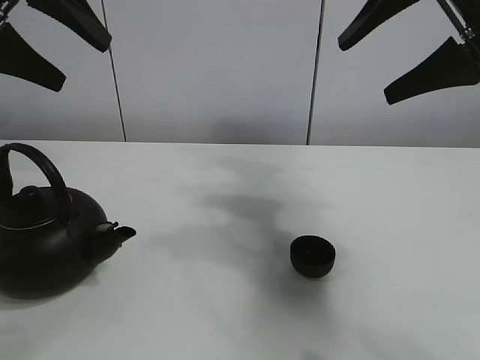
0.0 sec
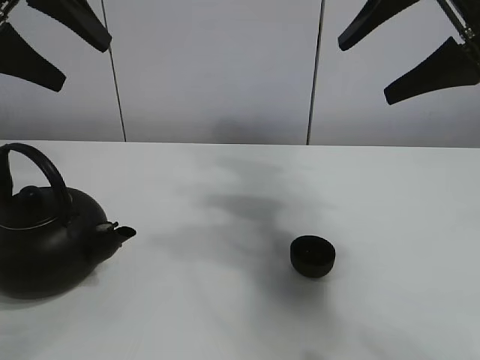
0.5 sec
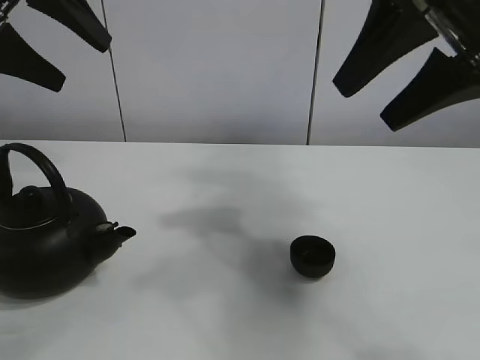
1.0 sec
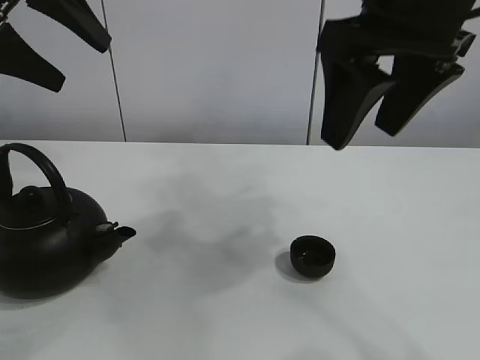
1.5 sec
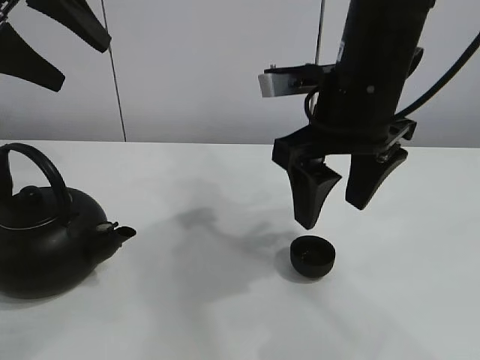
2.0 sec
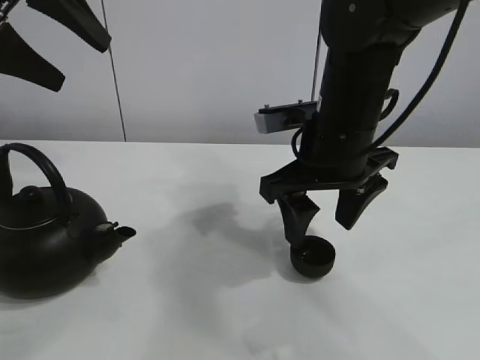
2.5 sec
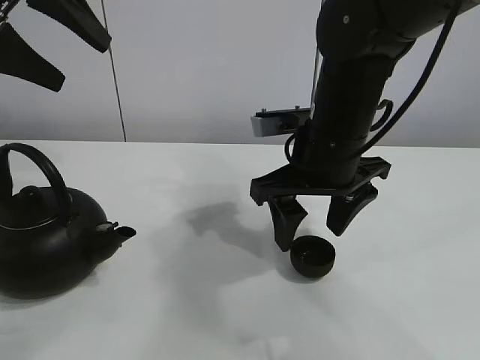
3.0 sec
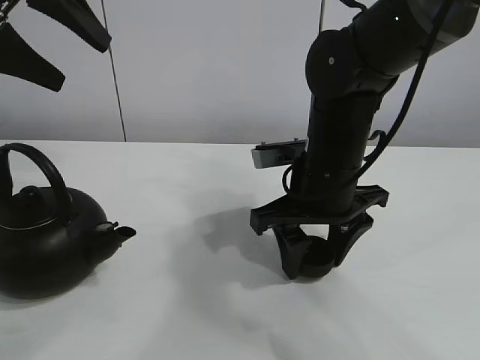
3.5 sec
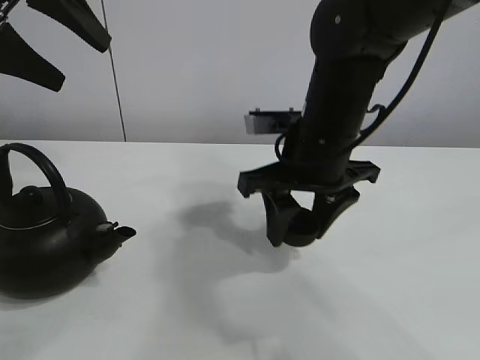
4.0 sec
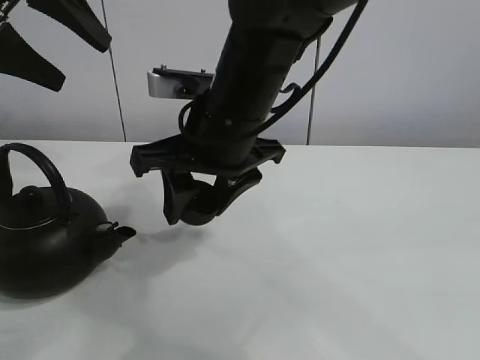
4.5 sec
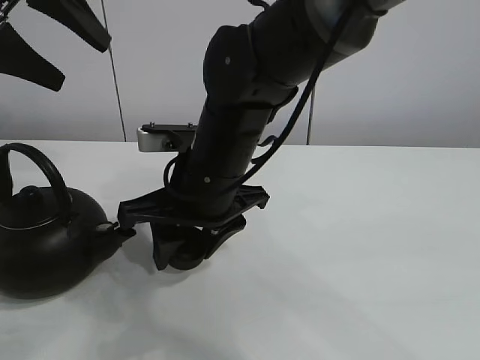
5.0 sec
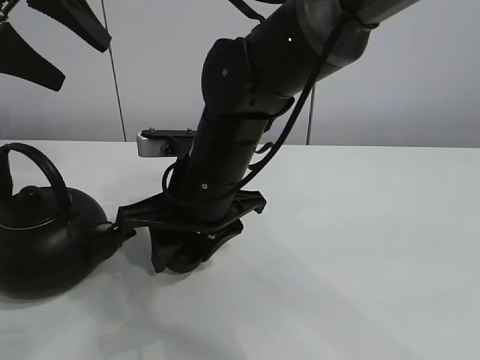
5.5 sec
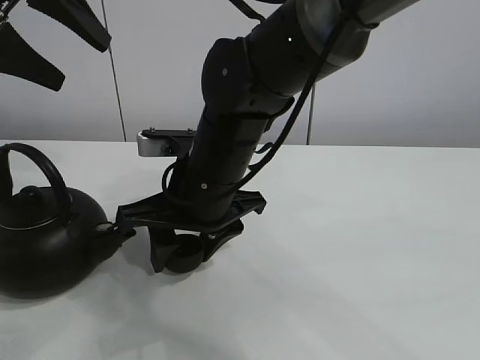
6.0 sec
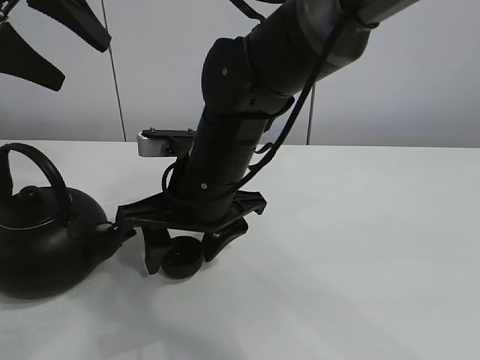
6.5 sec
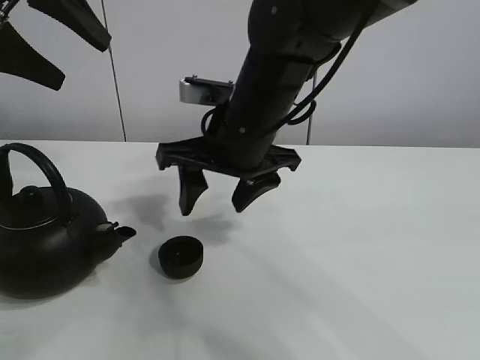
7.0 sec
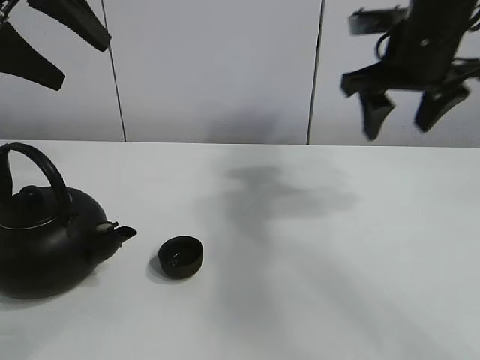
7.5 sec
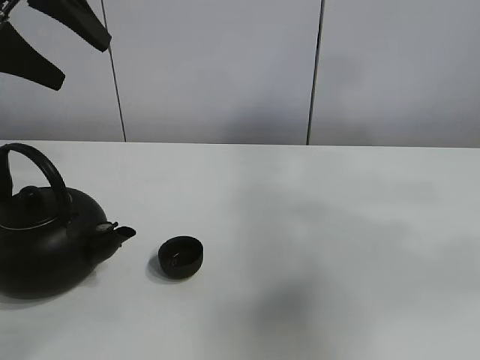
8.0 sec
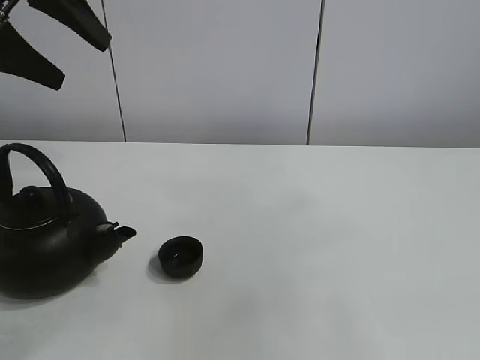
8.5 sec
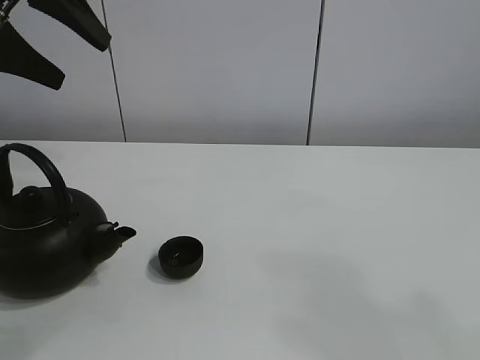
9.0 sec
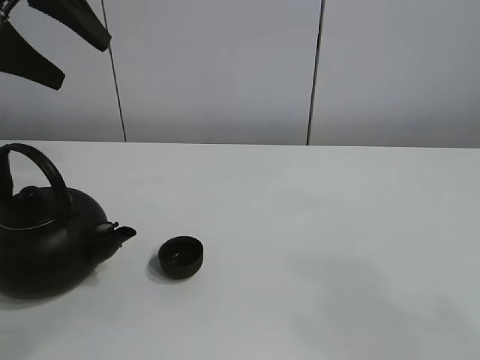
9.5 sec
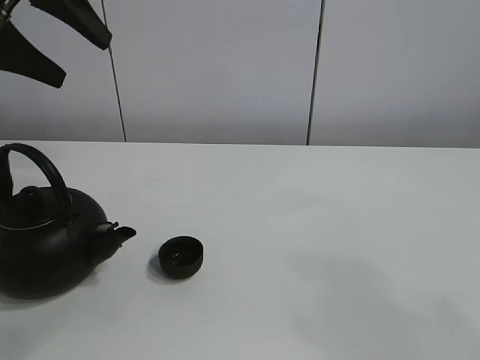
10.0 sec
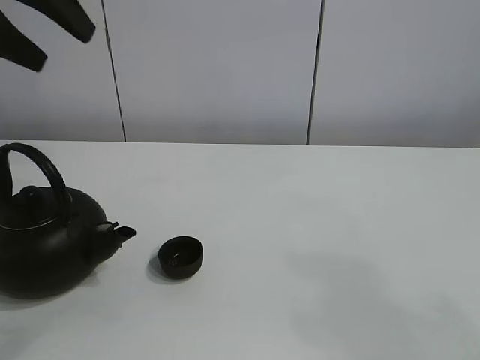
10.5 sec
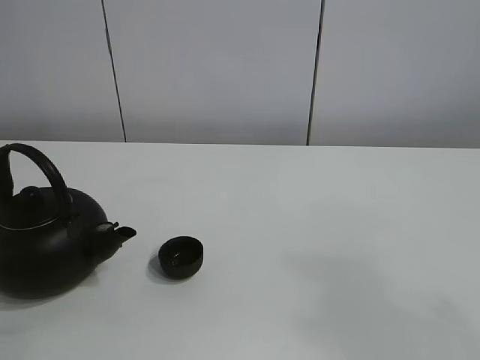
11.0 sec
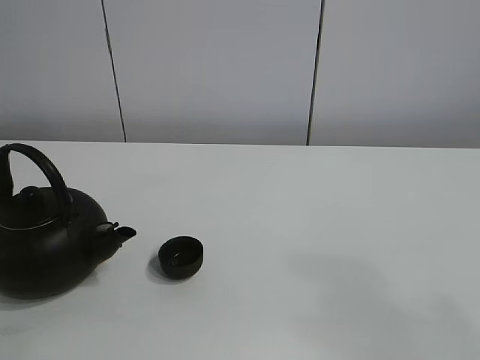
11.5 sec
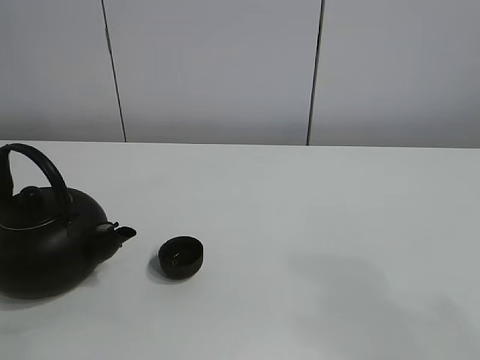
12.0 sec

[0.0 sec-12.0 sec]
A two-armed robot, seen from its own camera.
Task of the whole recording: pour tea into the teacup.
Step, 0.0 sec to 3.5 sec: Pick up the teacup with the right gripper.
Step, 4.0 sec to 6.0 sec: Place the teacup in the center of view with the right gripper.
2.0 sec to 4.0 sec: The right gripper closes up.
4.0 sec to 6.0 sec: The right gripper goes roughly 10 cm to the left.
6.0 sec to 8.0 sec: The right gripper travels to the right and upward by about 50 cm, and opens.
8.0 sec to 10.0 sec: The right gripper shifts some 30 cm backward, downward and to the left.
10.0 sec to 12.0 sec: The left gripper shifts about 20 cm backward.

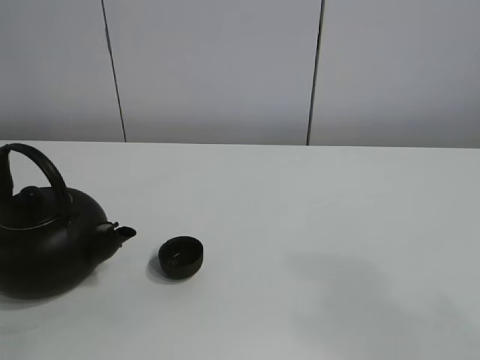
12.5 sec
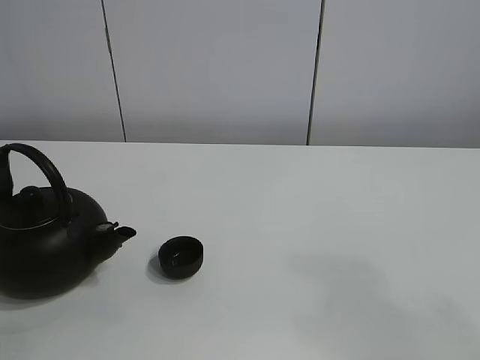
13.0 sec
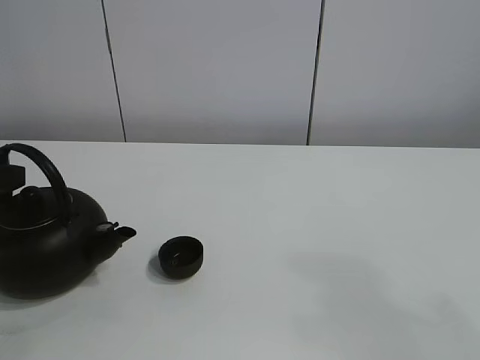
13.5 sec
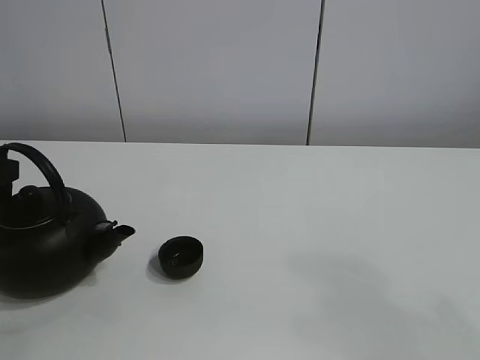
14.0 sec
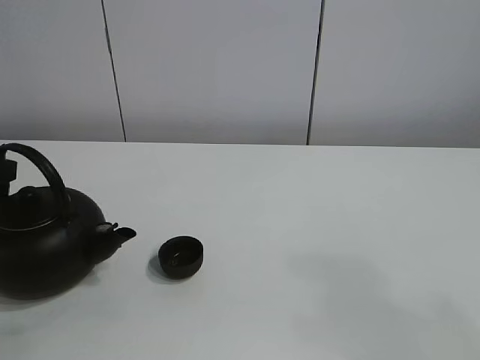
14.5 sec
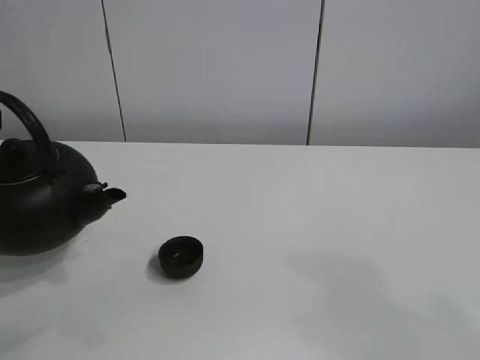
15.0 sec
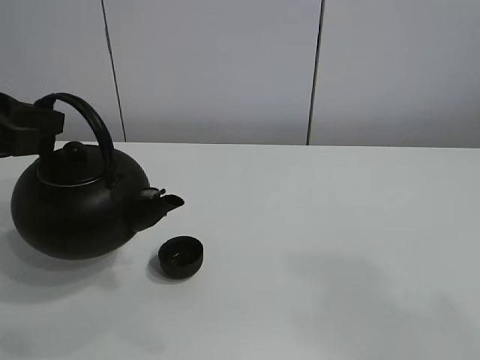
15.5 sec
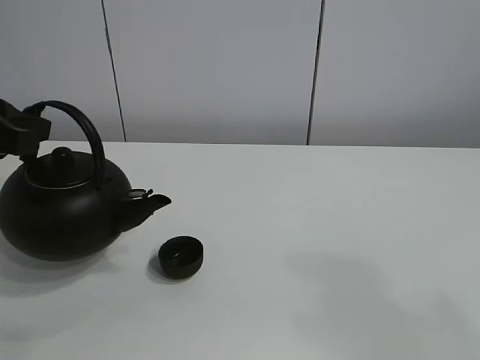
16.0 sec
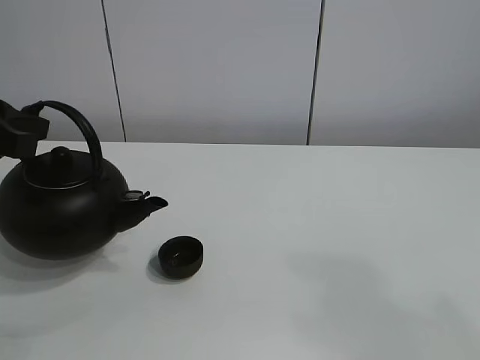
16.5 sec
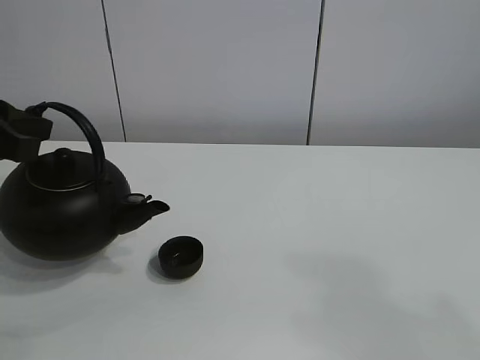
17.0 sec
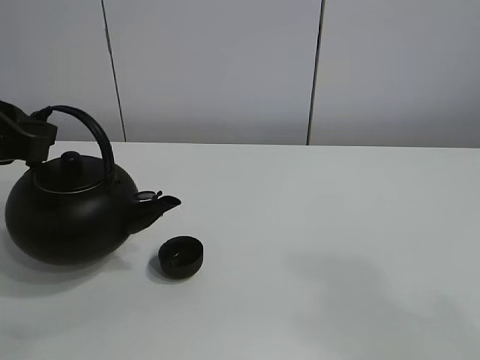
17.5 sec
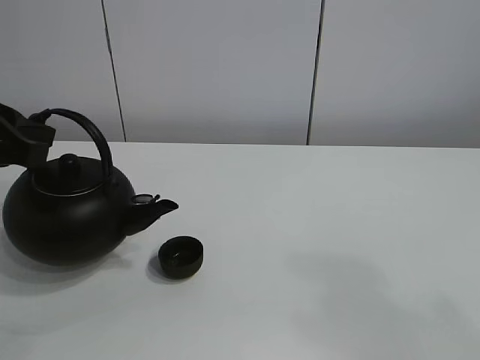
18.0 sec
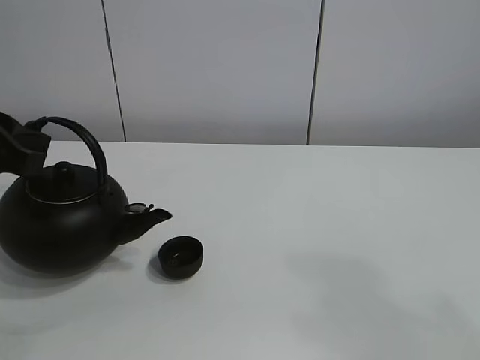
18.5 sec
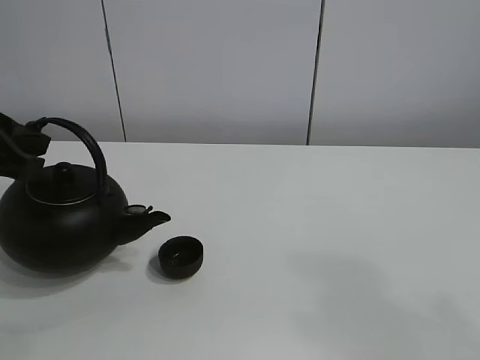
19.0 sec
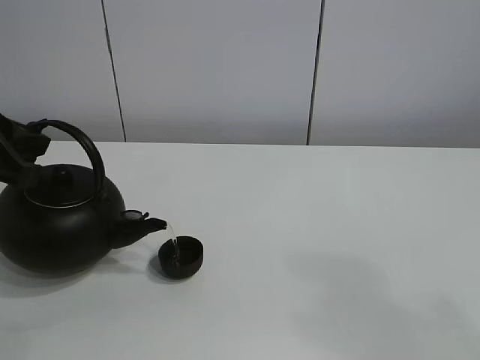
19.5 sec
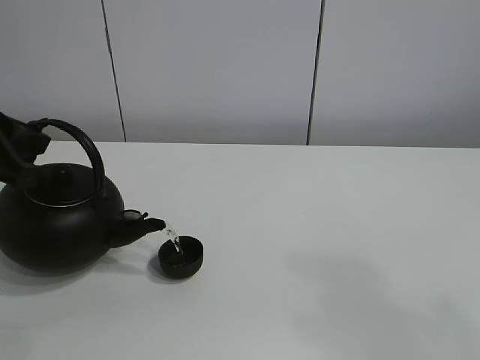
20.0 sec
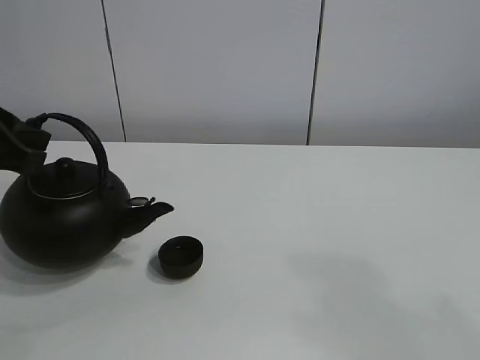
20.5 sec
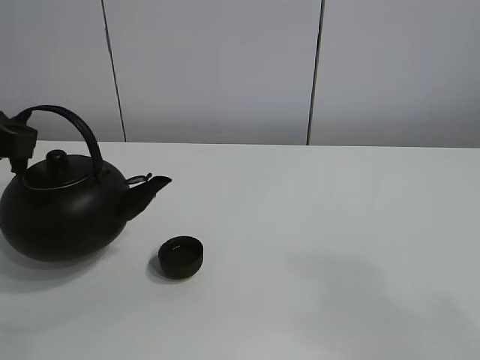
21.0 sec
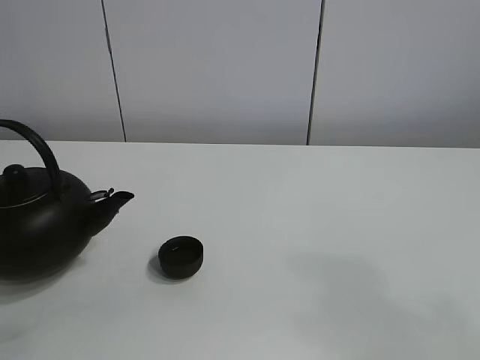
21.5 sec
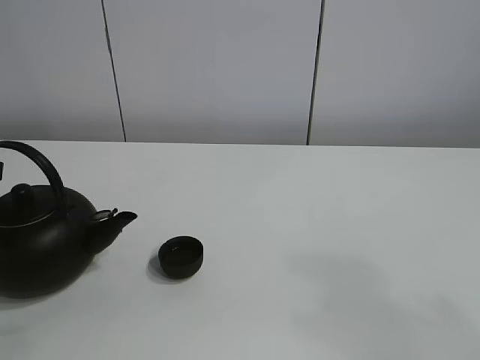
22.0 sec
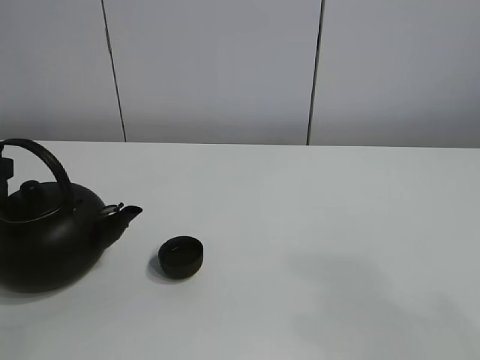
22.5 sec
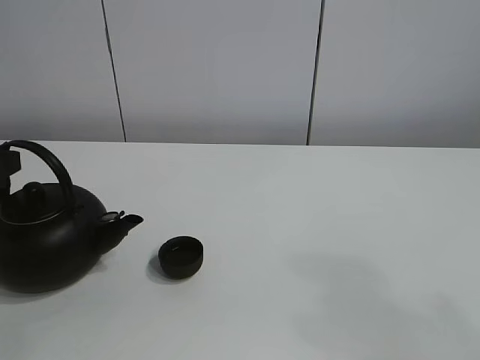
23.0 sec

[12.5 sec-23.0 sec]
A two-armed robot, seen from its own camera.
Task of the whole recording: pour tea into the teacup.
Step, 15.0 sec to 20.5 sec: Pour tea into the teacup with the left gripper.
14.5 sec to 16.5 sec: The left gripper ends up roughly 5 cm from where it was.
16.5 sec to 21.0 sec: There are only small adjustments of the grippers.
21.0 sec to 23.0 sec: The left gripper changes place by about 5 cm, and opens up.

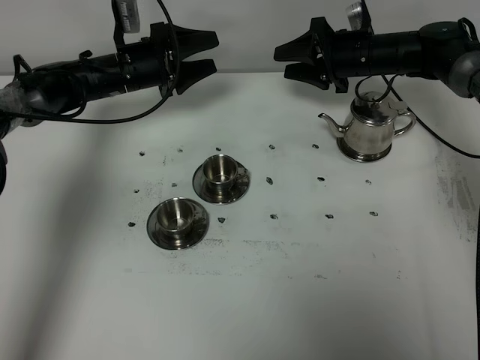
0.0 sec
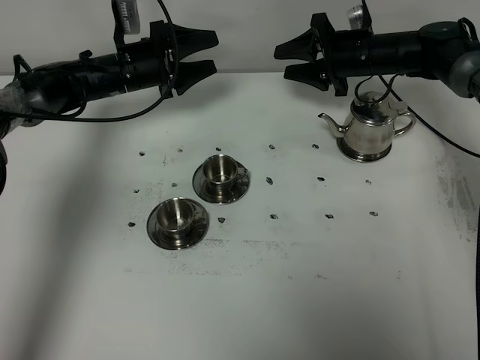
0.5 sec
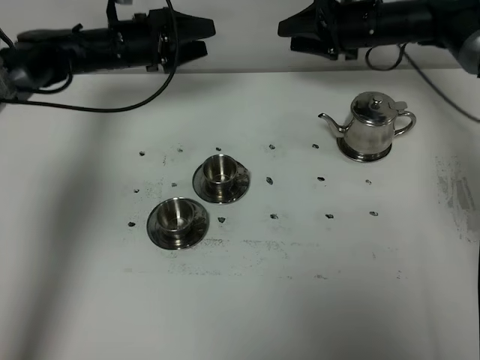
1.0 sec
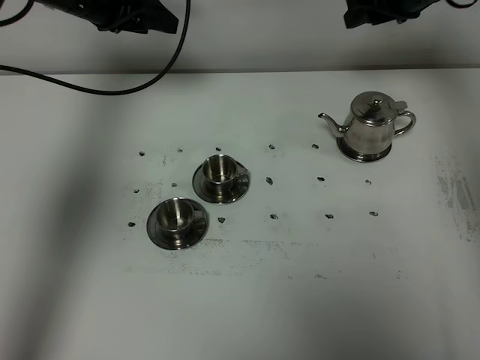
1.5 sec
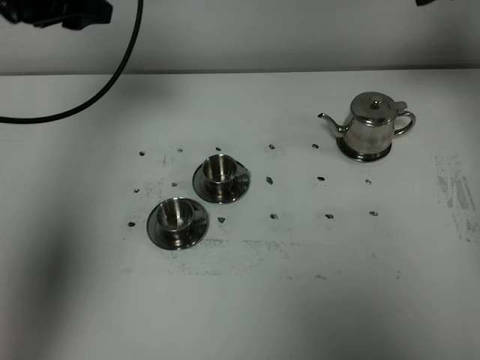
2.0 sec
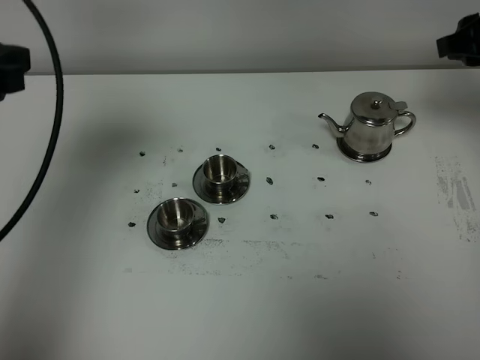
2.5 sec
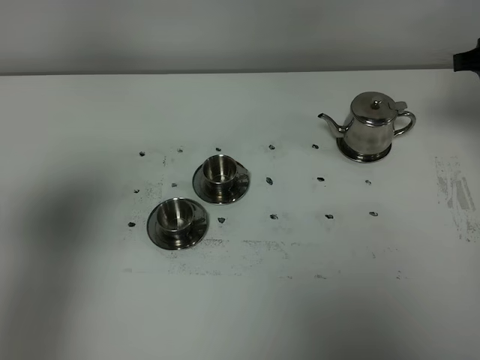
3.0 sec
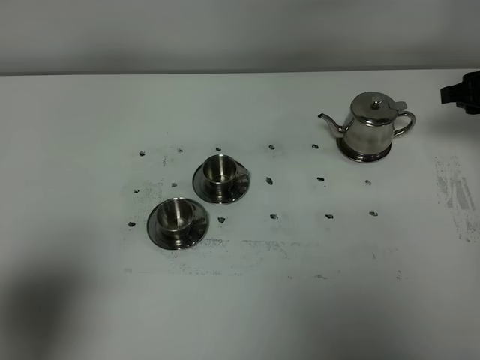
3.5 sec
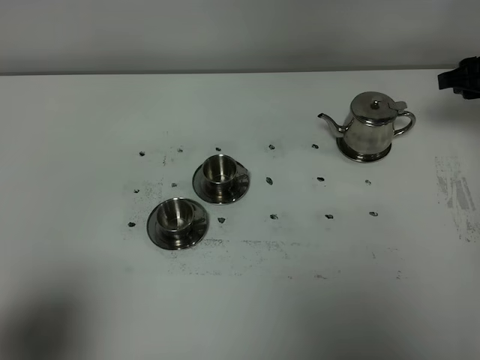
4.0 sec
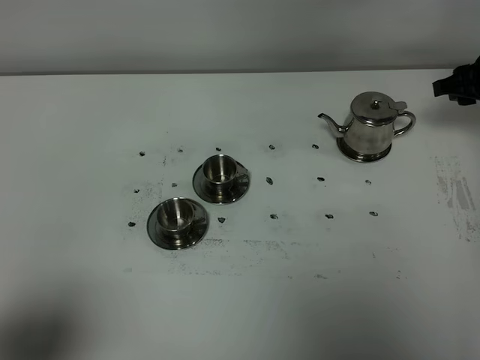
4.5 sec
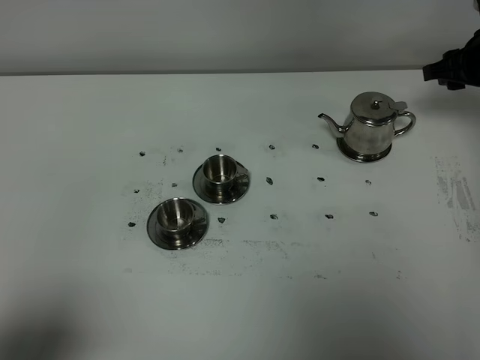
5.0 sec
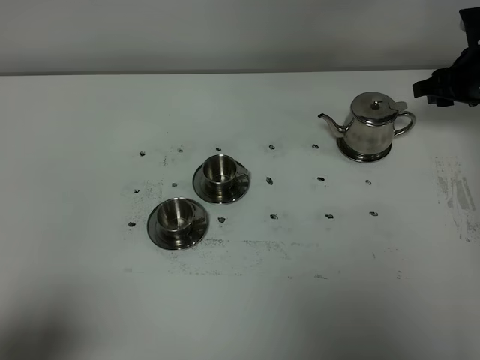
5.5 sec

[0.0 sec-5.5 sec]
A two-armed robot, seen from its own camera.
Task of the whole recording: grasp the stainless steel teapot and pour the tea into the two stainless steel teacups one by one, put the stainless steel teapot back in its original place.
0.0 sec to 2.0 sec: The left gripper moves upward and backward, approximately 25 cm, and closes up. The right gripper goes about 25 cm upward, backward and to the right.
2.0 sec to 3.5 sec: The left gripper goes roughly 35 cm backward. Meanwhile the right gripper shifts some 15 cm downward.
3.5 sec to 5.5 sec: The right gripper moves forward, some 5 cm; the left gripper travels downward by approximately 5 cm.
